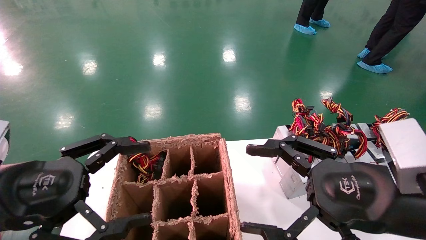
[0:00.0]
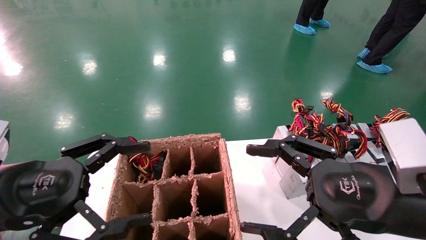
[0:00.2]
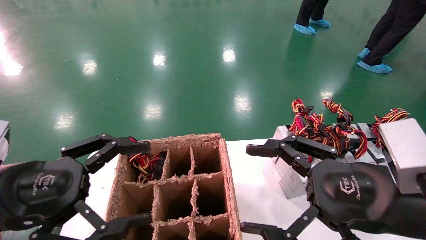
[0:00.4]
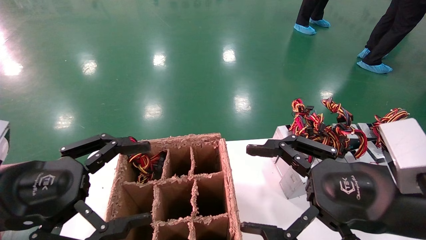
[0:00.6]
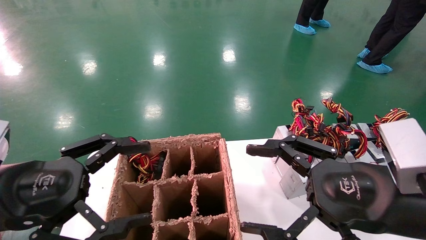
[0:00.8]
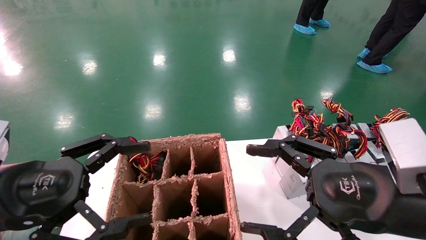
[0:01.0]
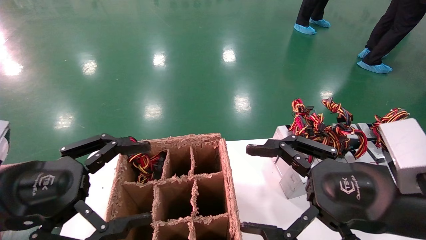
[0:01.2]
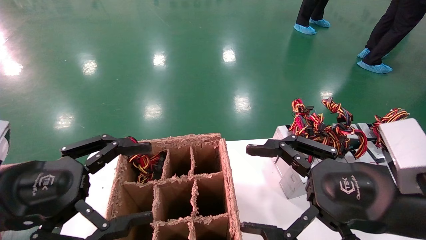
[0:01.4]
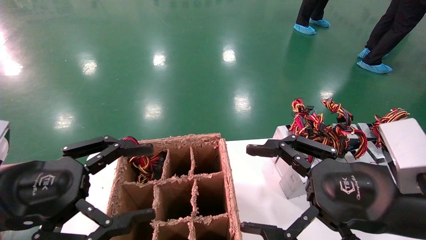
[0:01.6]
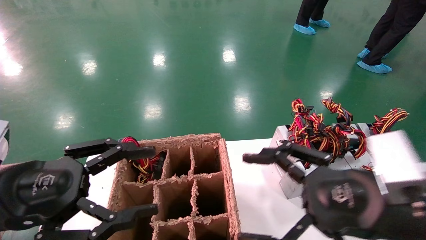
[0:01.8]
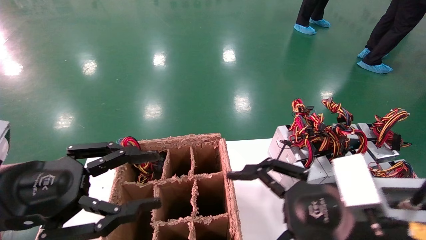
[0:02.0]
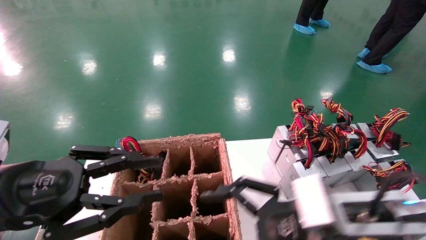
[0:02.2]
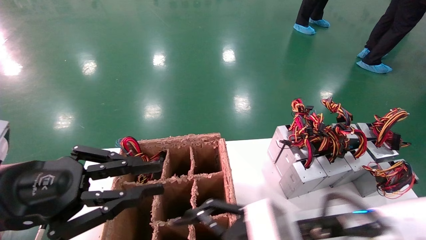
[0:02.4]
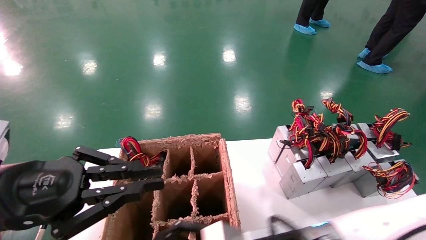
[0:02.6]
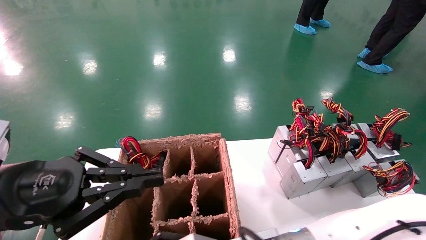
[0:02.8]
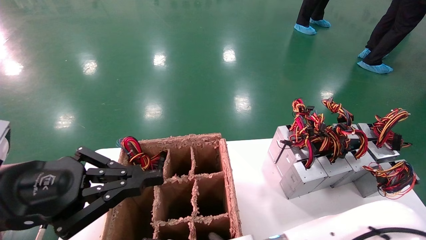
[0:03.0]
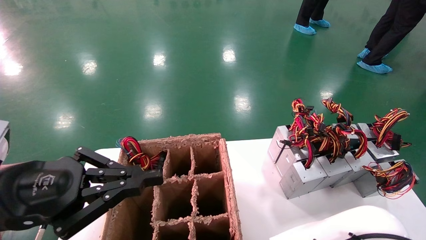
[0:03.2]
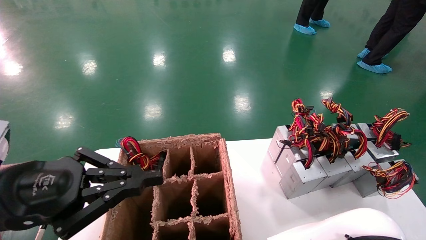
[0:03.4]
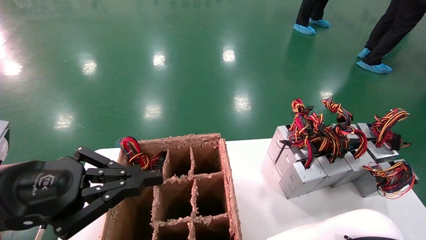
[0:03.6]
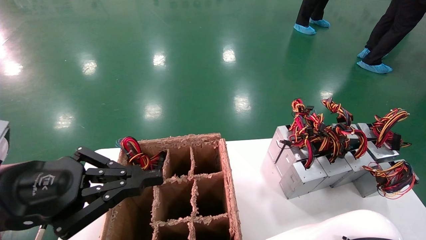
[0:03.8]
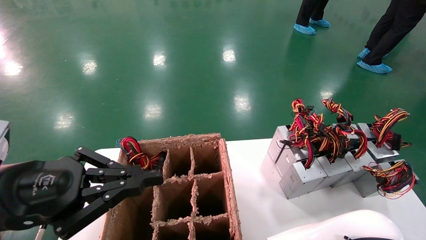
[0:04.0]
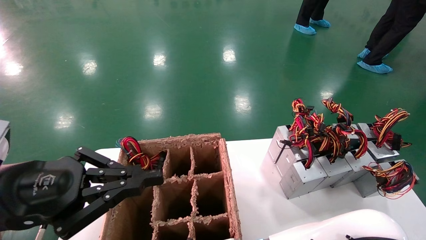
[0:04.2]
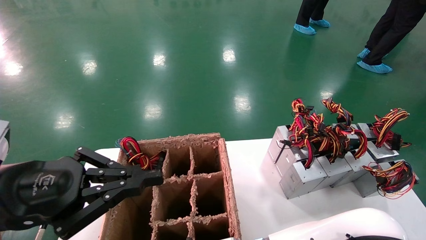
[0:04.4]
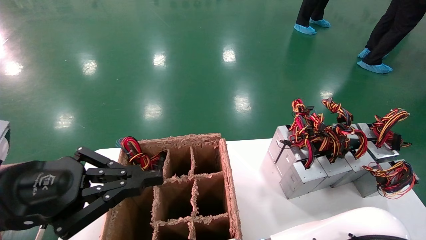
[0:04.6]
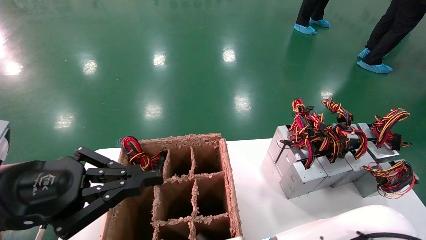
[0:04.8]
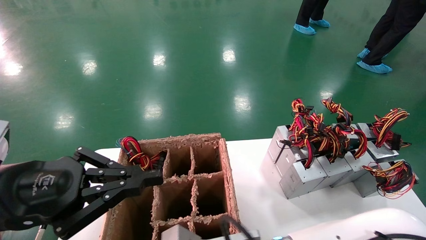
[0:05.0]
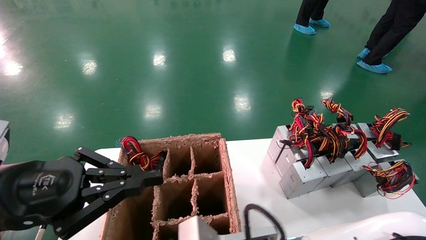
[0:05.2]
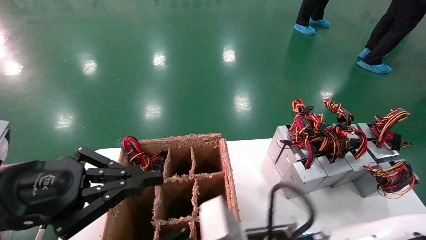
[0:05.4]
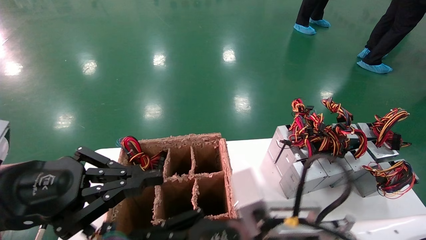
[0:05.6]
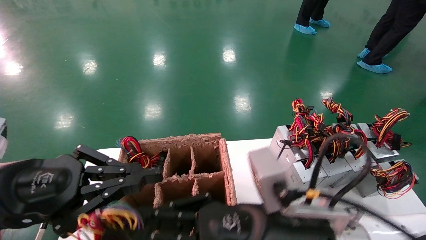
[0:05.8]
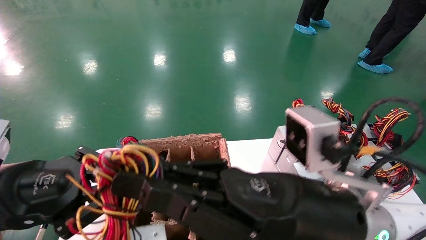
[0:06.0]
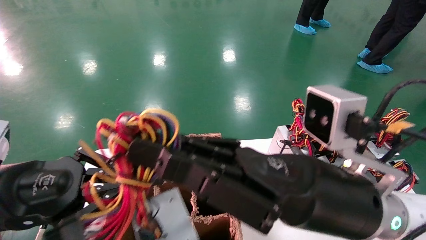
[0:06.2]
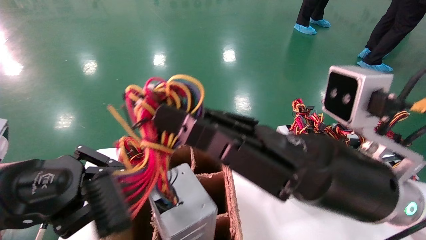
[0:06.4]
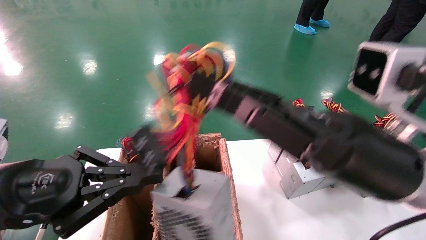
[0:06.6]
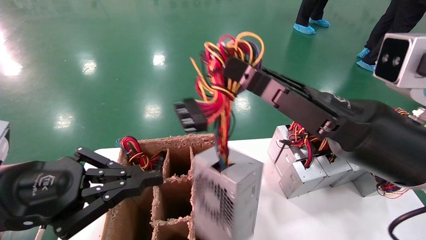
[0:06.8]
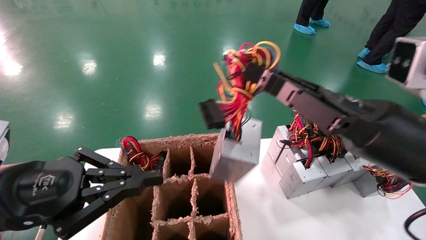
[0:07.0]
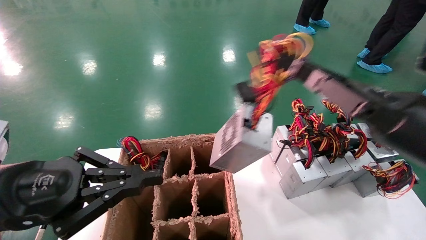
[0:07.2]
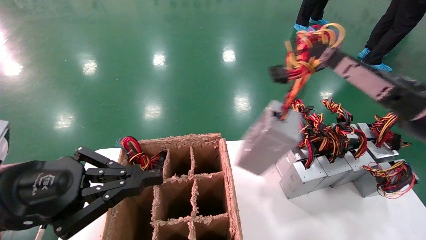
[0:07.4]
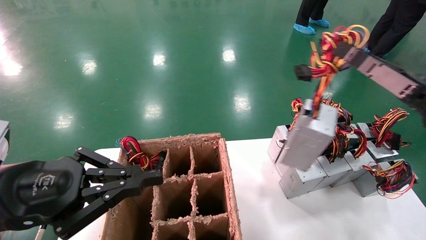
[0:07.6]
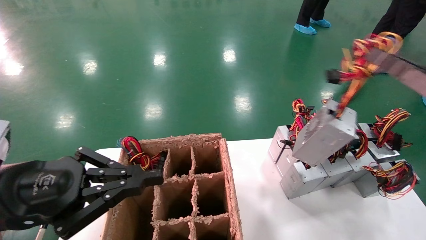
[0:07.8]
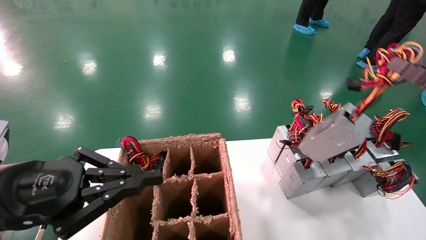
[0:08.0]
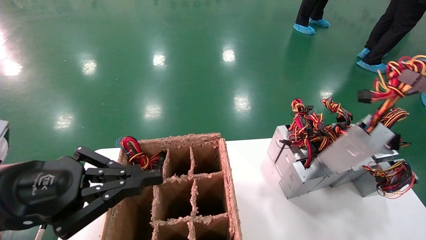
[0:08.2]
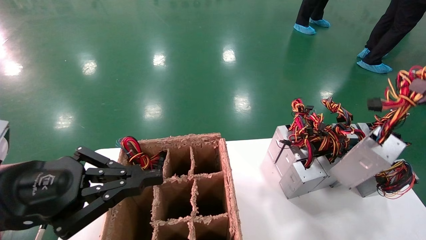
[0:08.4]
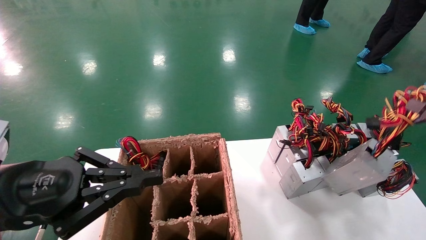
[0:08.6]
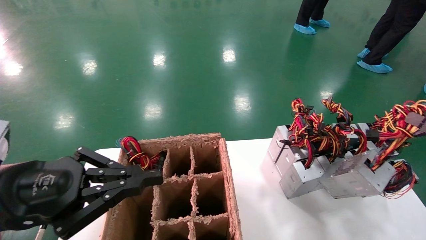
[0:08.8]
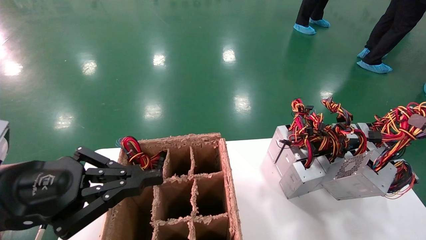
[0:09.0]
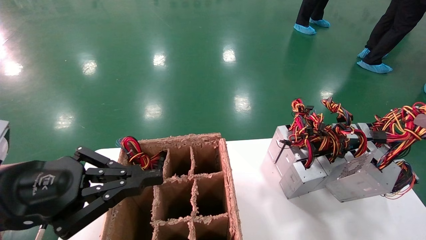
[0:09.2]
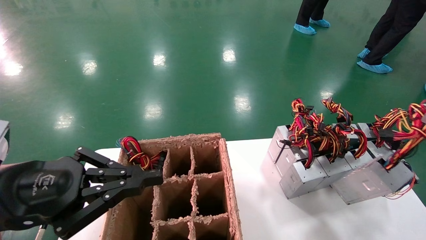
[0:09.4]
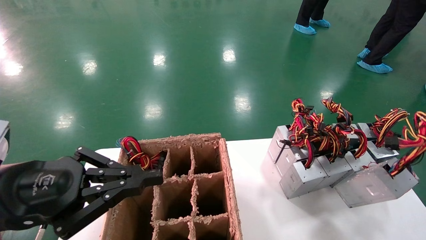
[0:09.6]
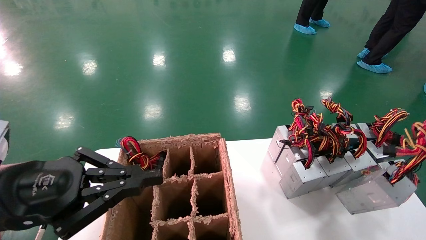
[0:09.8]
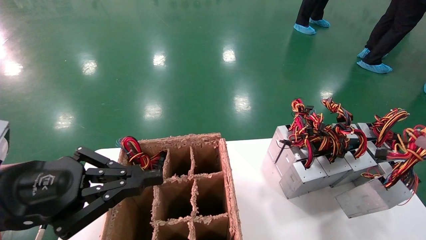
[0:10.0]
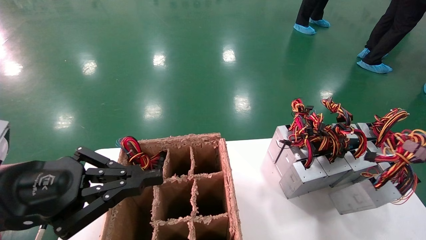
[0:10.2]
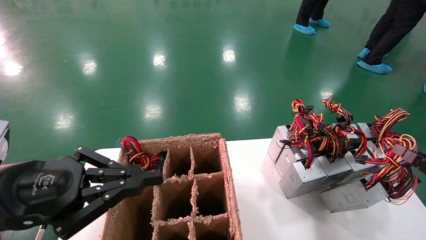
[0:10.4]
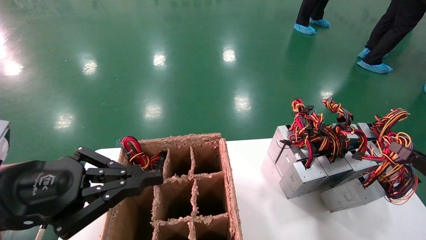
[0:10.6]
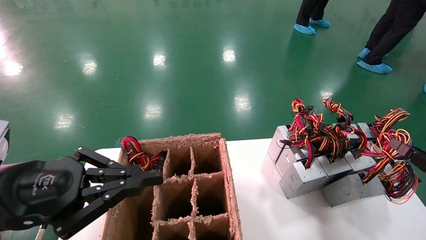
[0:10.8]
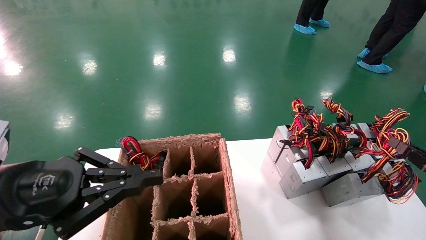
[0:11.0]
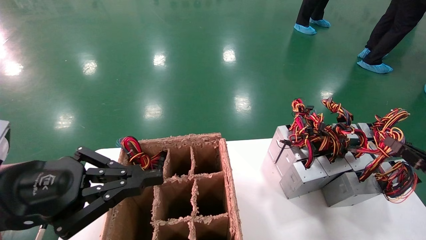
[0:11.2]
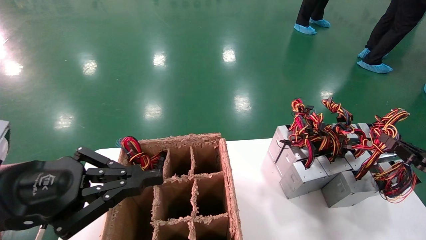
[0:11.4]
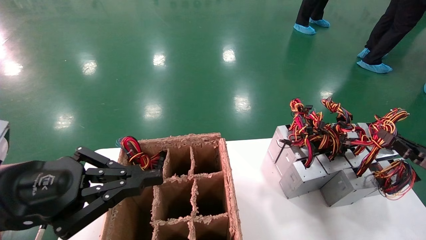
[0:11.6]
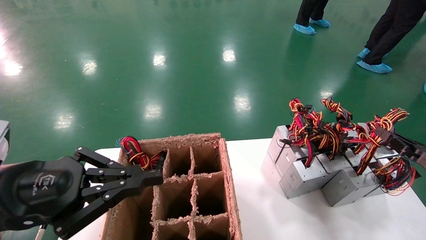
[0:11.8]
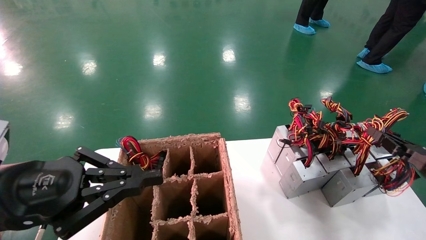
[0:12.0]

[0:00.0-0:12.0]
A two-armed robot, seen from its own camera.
Step, 0:01.8 to 0:04.4: Grab the main unit power supply from the containment box.
0:00.0 to 0:01.6: Both grippers stay put.
0:01.6 to 0:03.0: The left gripper closes; the right gripper goes some 25 cm to the left and downward.
0:03.0 to 0:04.4: The right gripper closes its fingers.
0:04.4 to 0:06.0: The right gripper travels upward and to the right by approximately 15 cm.
0:06.0 to 0:07.6: The right gripper travels to the right by approximately 25 cm.
0:07.6 to 0:09.0: The right gripper travels to the right, downward and backward by some 15 cm.
0:09.0 to 0:10.4: The right gripper shifts roughly 5 cm downward.
0:10.4 to 0:12.0: The right gripper shifts about 10 cm forward.

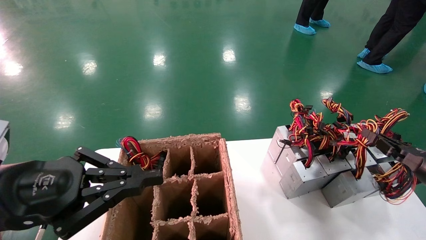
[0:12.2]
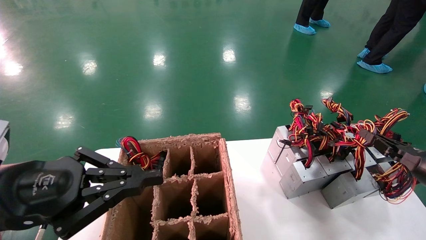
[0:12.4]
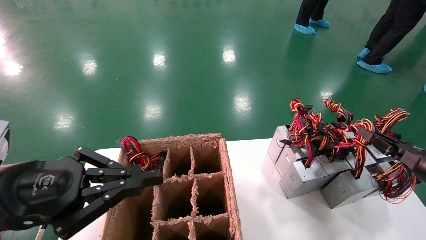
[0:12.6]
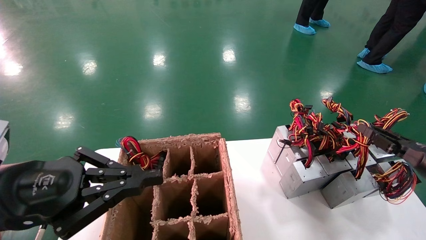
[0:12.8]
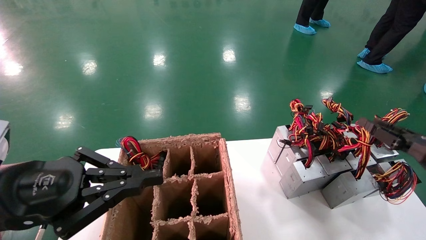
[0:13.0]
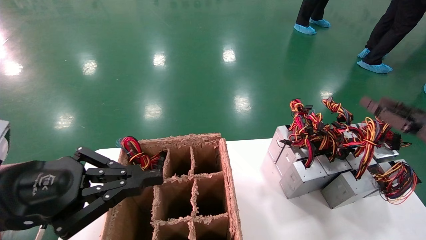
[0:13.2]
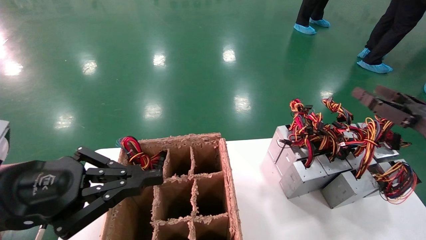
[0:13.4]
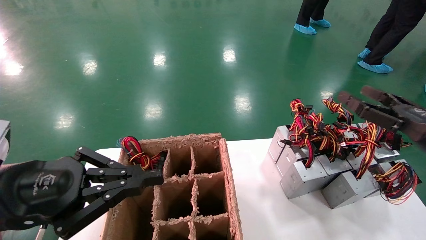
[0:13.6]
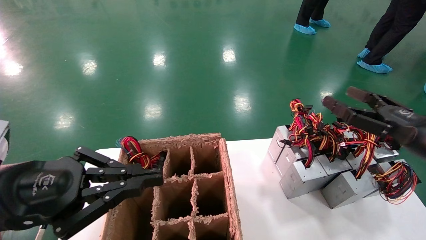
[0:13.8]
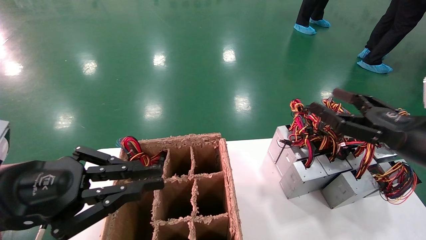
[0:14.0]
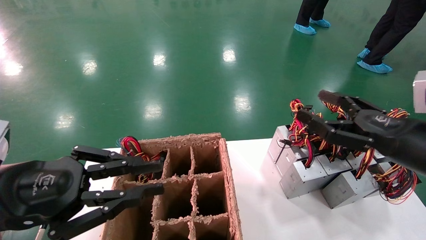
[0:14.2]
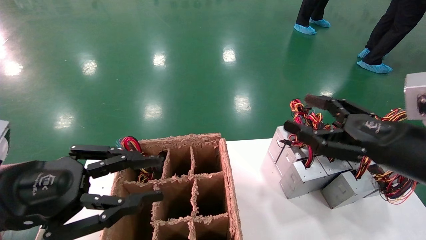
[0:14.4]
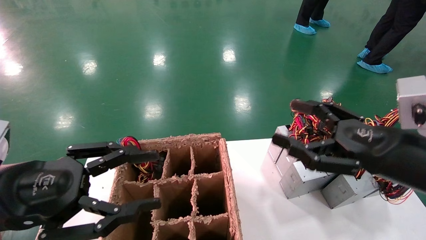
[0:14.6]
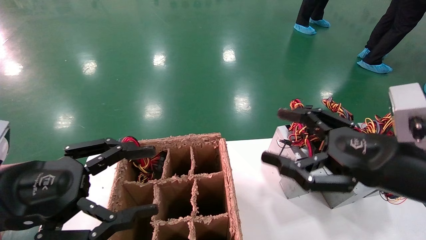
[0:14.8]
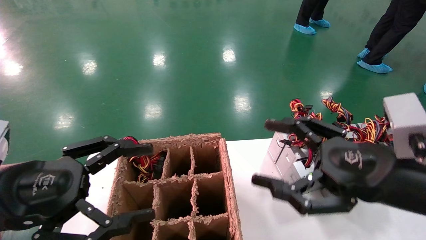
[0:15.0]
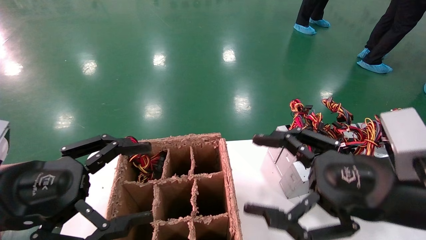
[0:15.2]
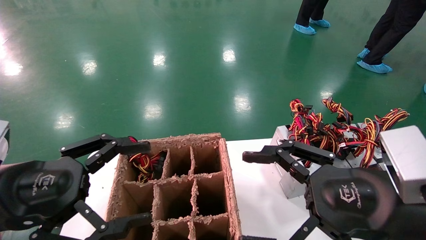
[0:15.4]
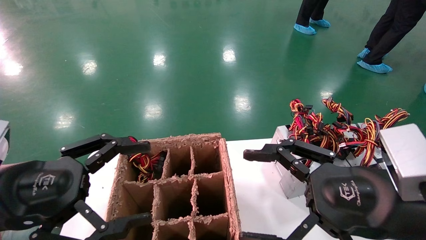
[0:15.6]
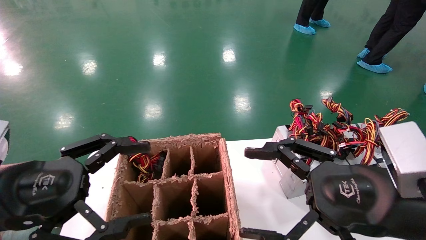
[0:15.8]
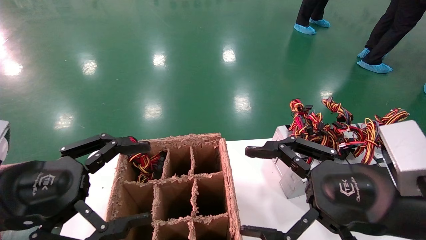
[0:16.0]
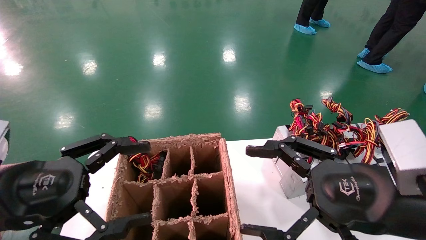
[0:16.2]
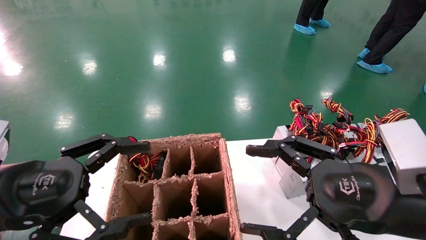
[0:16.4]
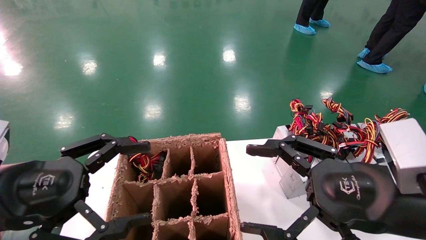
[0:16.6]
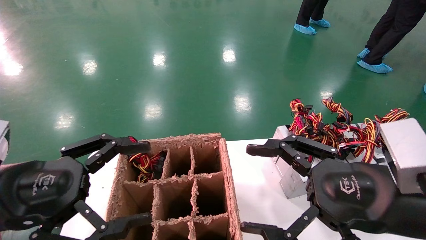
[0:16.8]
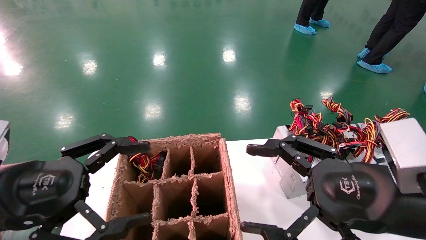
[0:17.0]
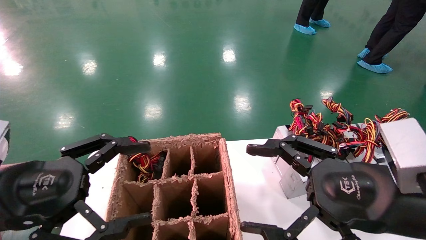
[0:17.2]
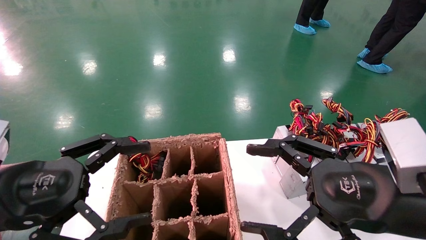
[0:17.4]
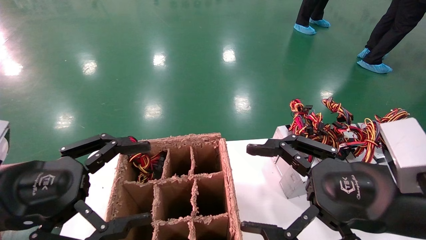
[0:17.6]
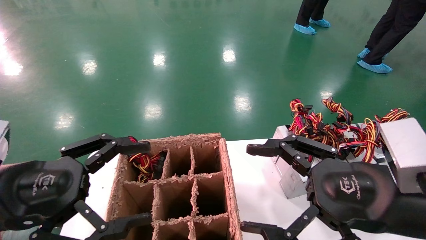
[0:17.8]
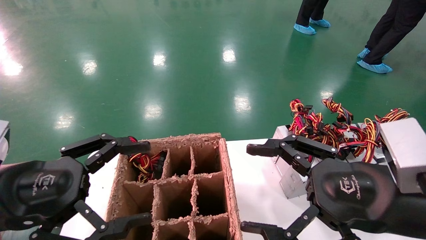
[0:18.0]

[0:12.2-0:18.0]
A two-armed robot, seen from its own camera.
0:12.2 to 0:13.6: The right gripper shifts about 10 cm upward and to the left, and opens its fingers.
0:13.6 to 0:15.0: The left gripper opens. Meanwhile the right gripper heads to the left and backward, covering some 15 cm.
0:15.0 to 0:16.6: The grippers make only small movements.
0:16.6 to 0:18.0: Both grippers stay about where they are.
